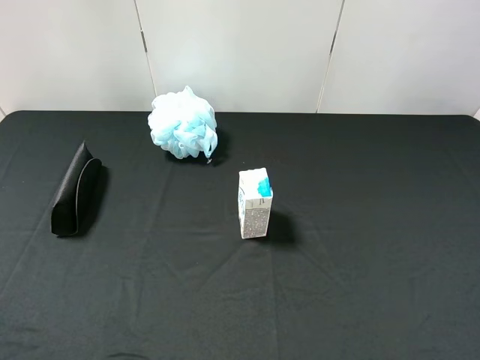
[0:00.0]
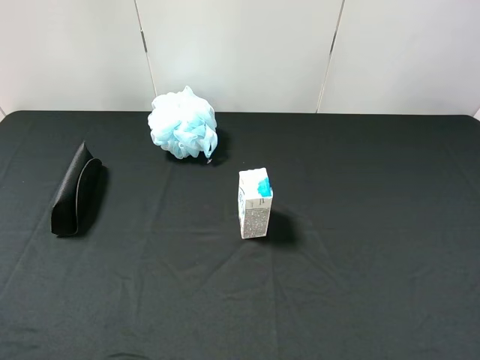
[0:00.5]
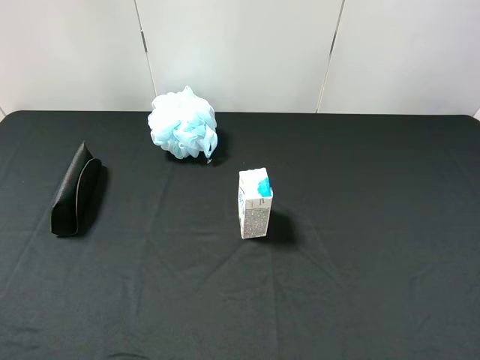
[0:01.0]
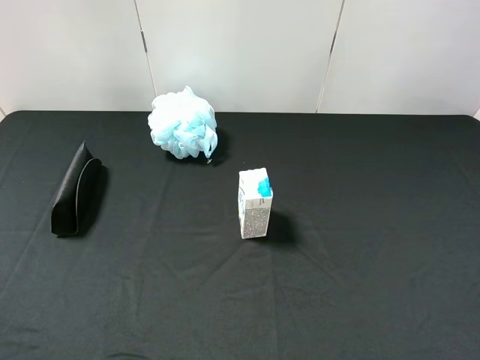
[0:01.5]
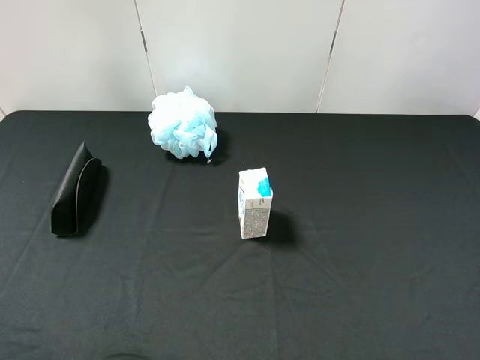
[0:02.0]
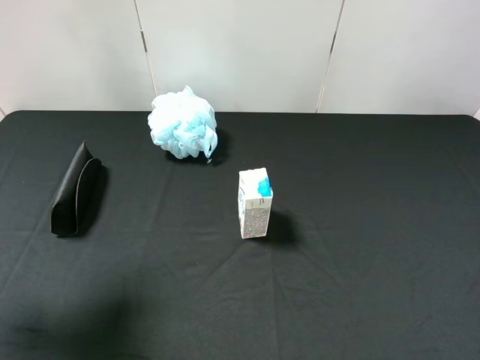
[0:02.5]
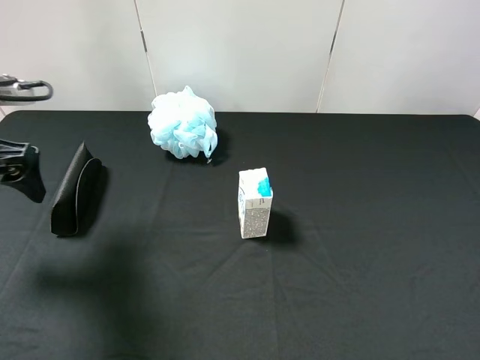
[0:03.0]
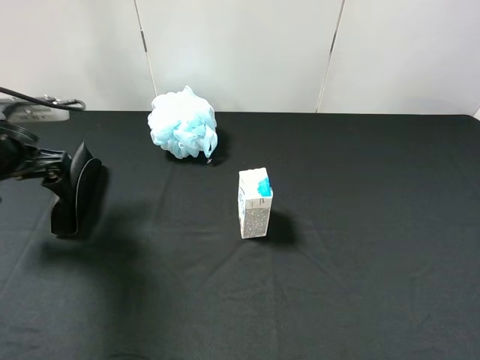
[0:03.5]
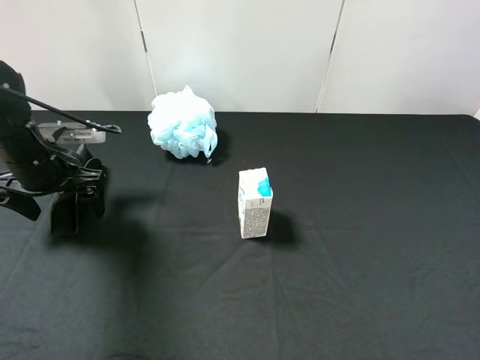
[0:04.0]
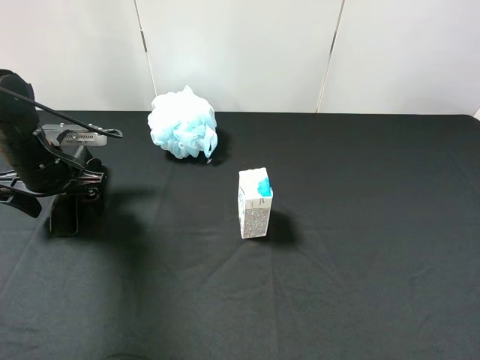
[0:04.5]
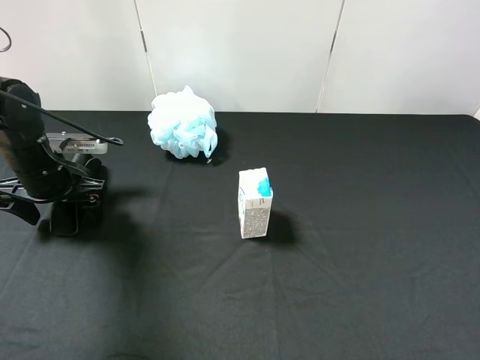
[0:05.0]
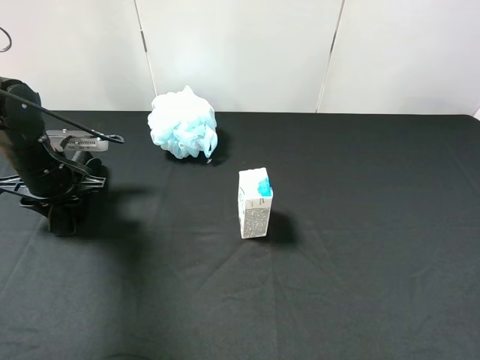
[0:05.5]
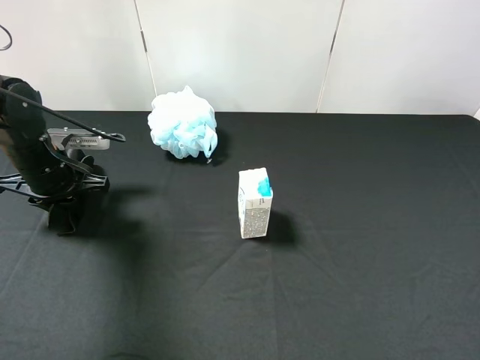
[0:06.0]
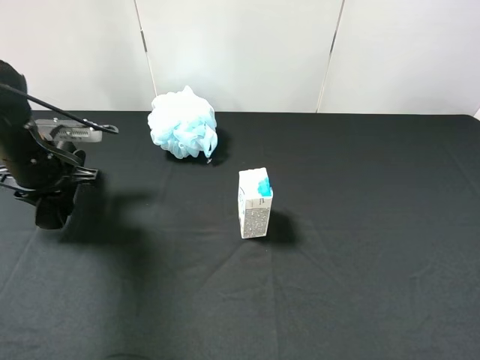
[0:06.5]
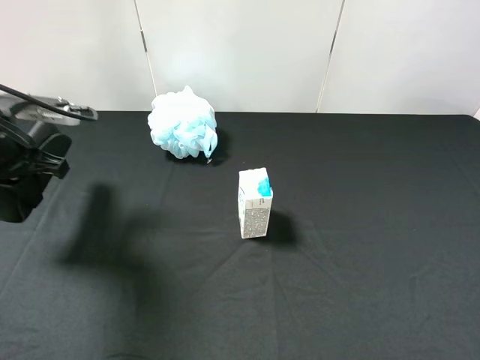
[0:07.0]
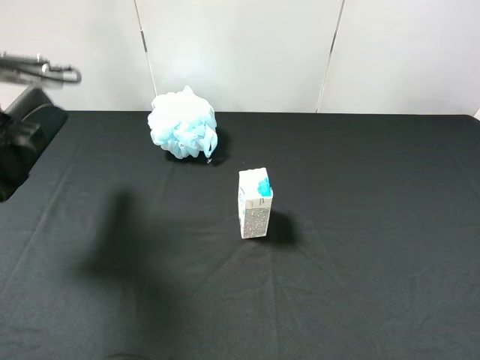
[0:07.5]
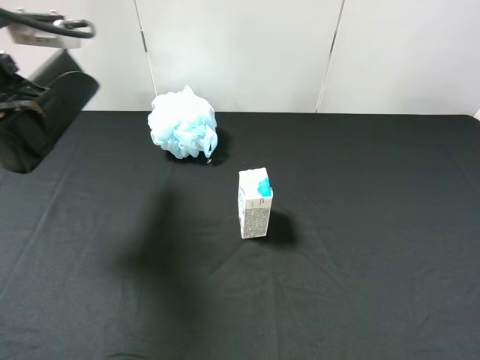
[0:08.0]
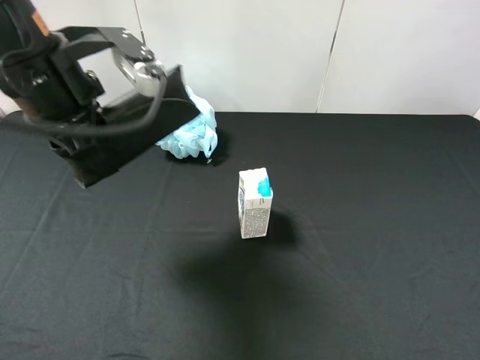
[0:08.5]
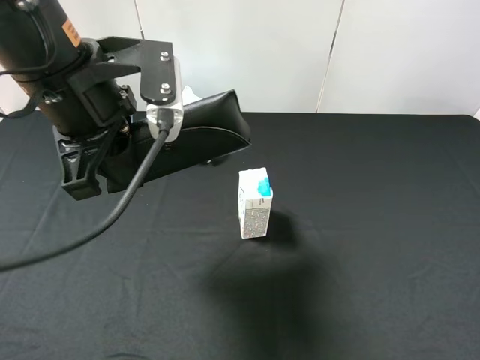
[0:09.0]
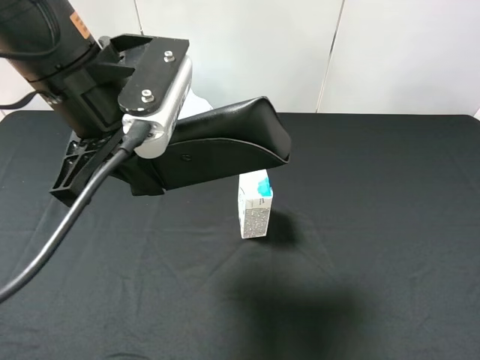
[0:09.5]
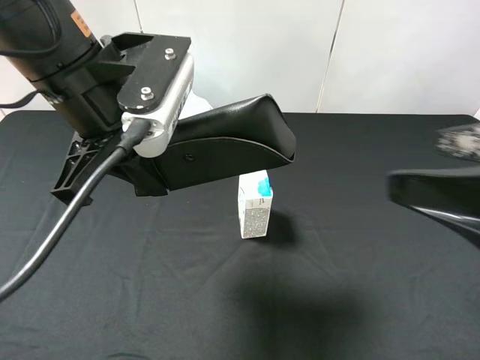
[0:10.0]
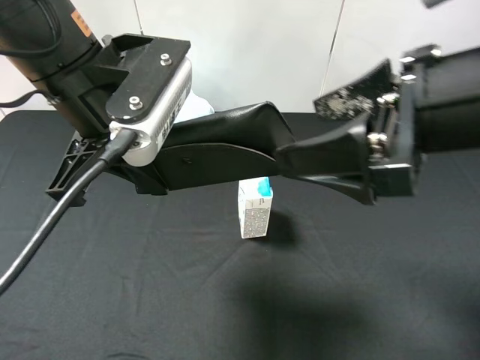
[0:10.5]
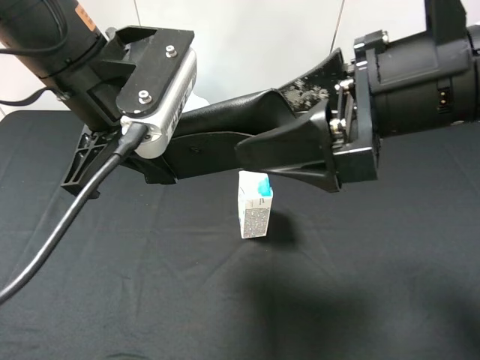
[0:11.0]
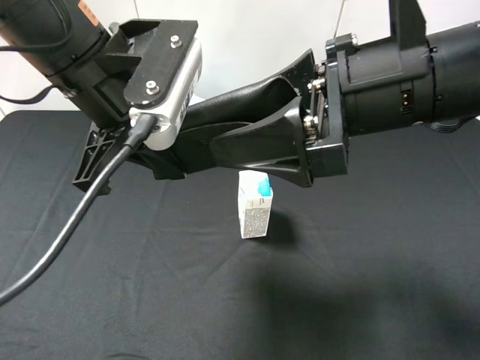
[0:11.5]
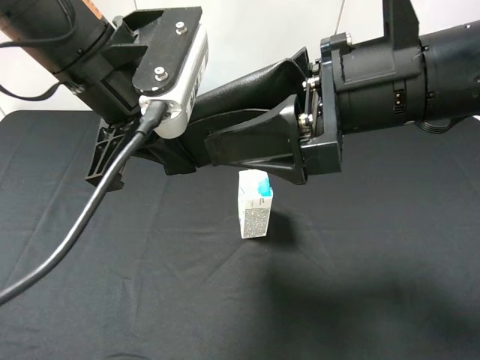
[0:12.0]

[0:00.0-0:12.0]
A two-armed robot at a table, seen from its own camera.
Task of the whole recording: use the left gripper to pick up the item and transfer it from the left gripper to the right gripper.
0:02.0 to 0:04.0: The left gripper travels forward and downward by roughly 30 cm.
0:04.0 to 0:06.0: The left gripper closes its fingers.
0:06.0 to 0:08.0: The left gripper heads upward, covering about 20 cm.
0:08.0 to 0:10.0: The left gripper travels to the right by some 15 cm. The right gripper heads forward and to the left, covering roughly 10 cm.
0:10.0 to 0:12.0: The right gripper goes about 15 cm to the left and forward.

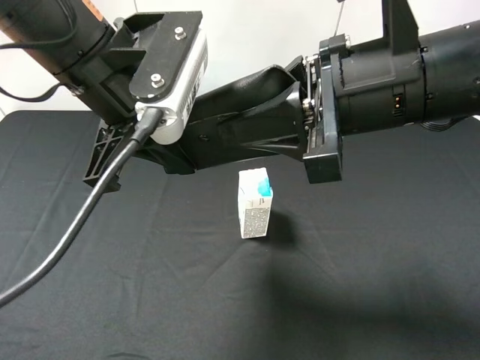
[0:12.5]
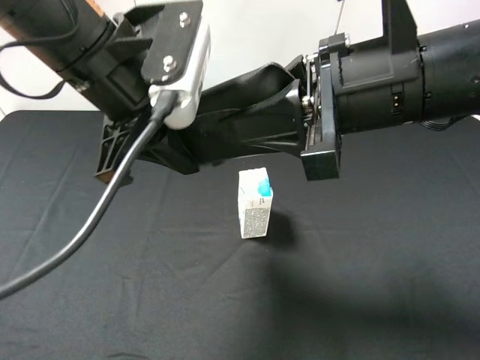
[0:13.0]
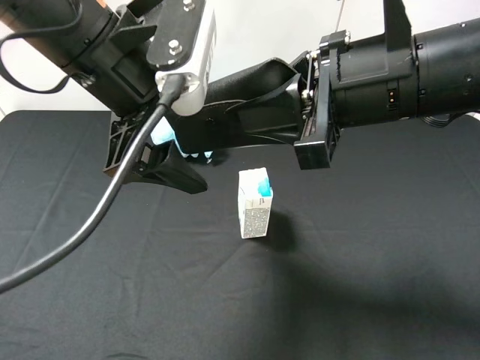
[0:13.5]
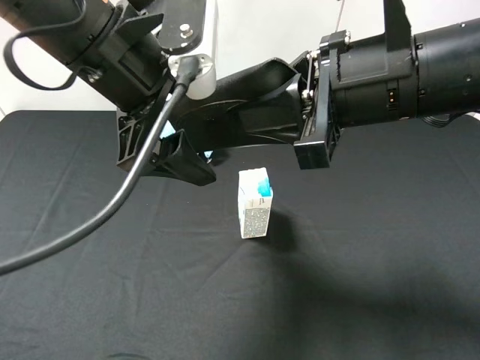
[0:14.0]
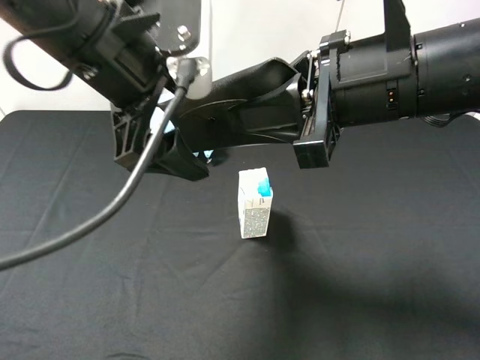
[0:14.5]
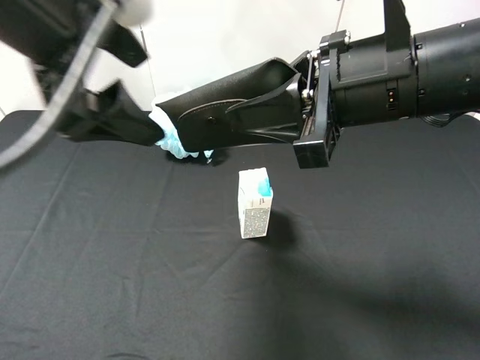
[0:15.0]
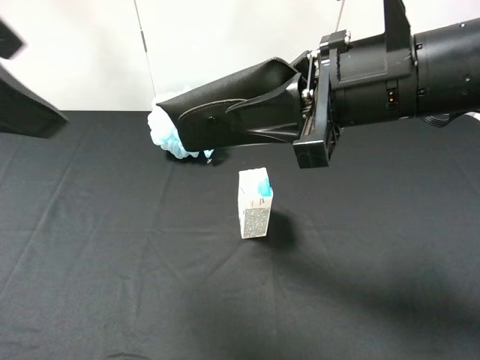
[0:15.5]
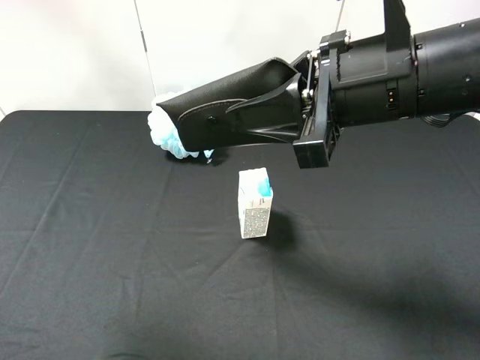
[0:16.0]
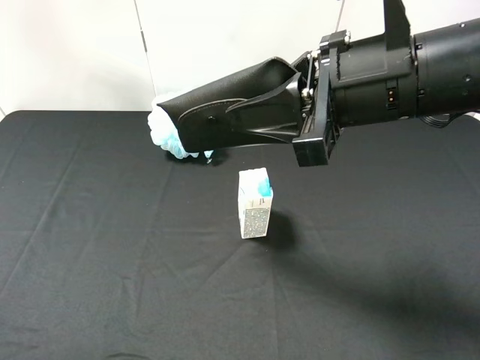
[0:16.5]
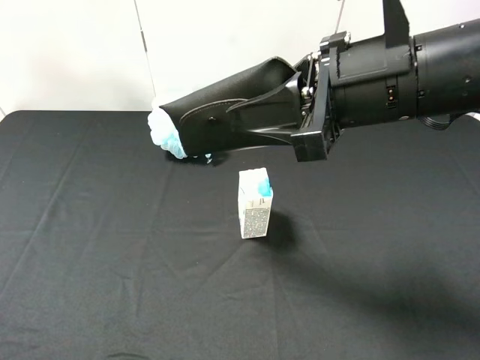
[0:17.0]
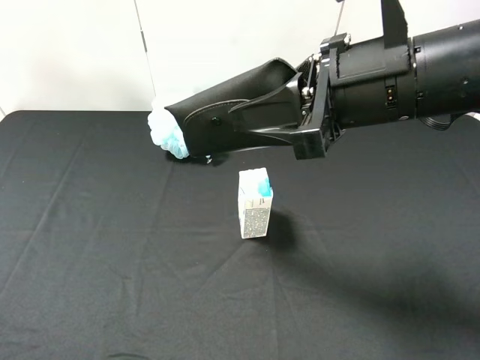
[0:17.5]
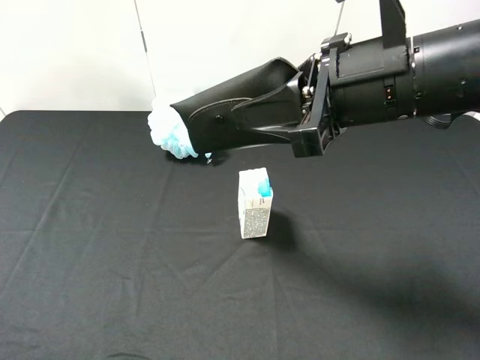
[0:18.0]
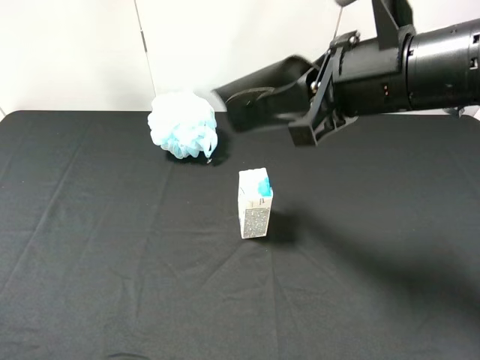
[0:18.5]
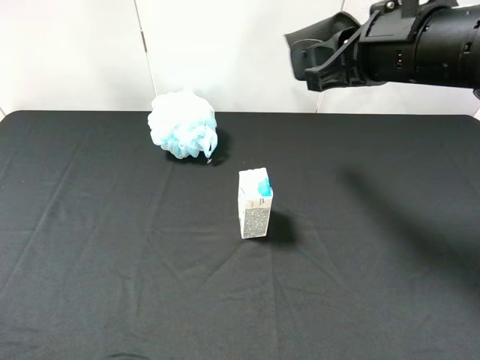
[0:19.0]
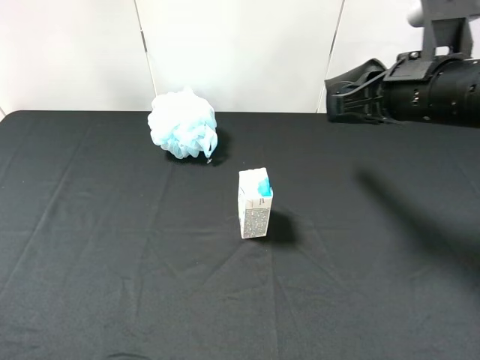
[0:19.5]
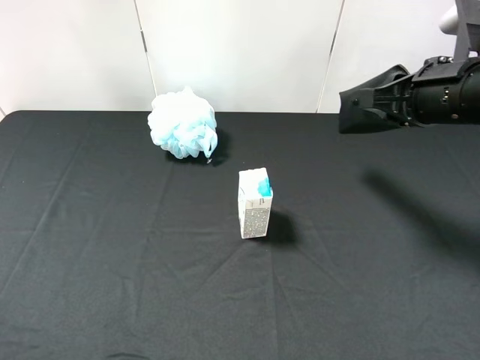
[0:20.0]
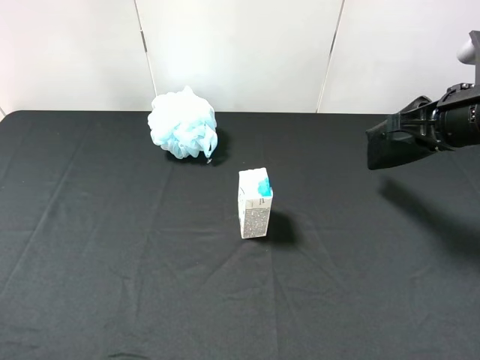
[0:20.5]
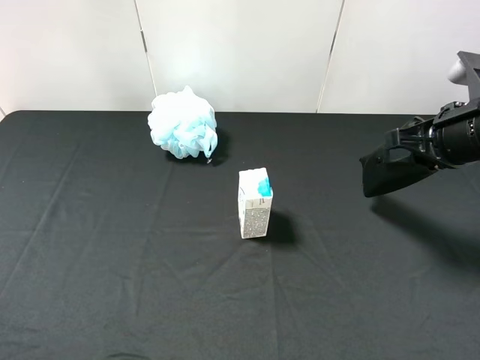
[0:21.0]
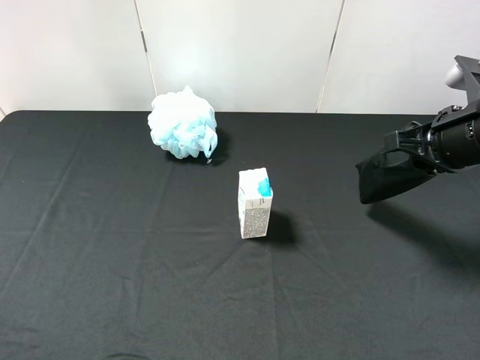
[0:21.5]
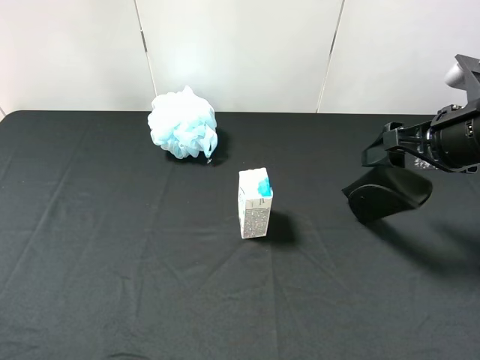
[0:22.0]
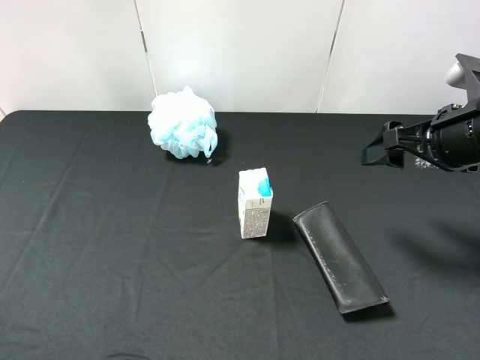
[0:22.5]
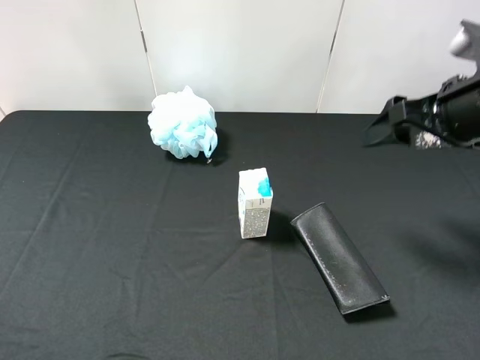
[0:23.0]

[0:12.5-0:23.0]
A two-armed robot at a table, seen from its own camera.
Task of the whole recording: use the left gripper to pick up the item and transfer it from the left gripper to the right gripper.
0:12.5 to 0:14.5: The left gripper opens up.
0:14.5 to 0:16.5: The left gripper goes roughly 30 cm backward and to the left.
0:16.5 to 0:19.0: The left gripper moves about 5 cm. The right gripper shifts by about 5 cm.
0:19.0 to 0:21.0: The right gripper moves to the right and downward, about 10 cm.
0:21.0 to 0:23.0: The right gripper opens.

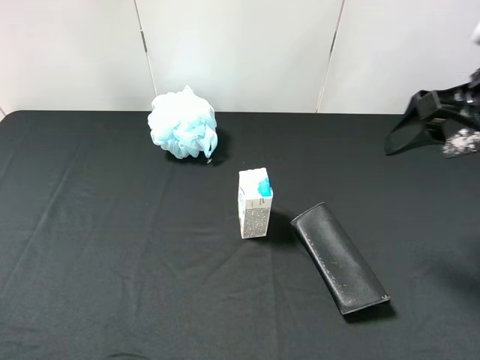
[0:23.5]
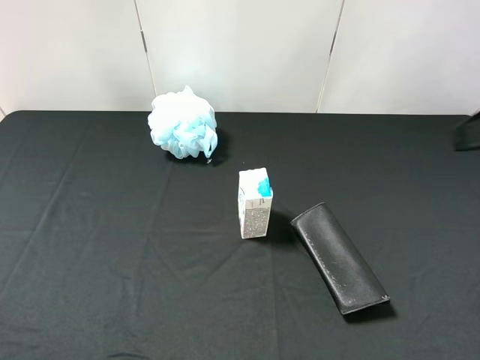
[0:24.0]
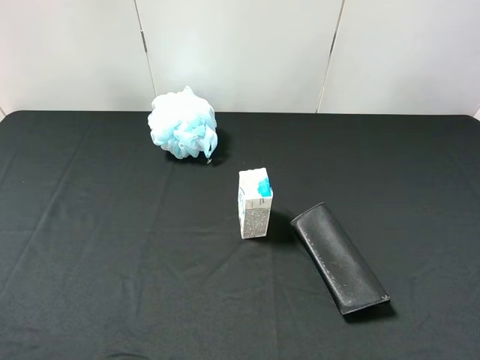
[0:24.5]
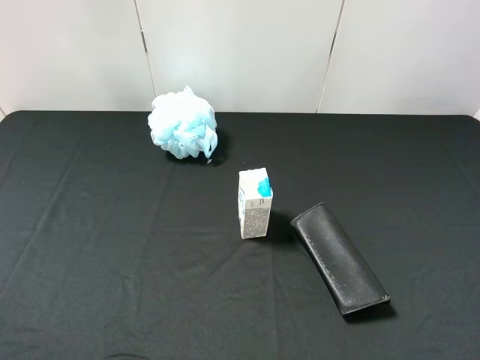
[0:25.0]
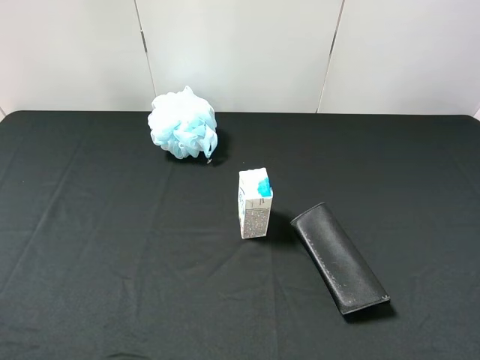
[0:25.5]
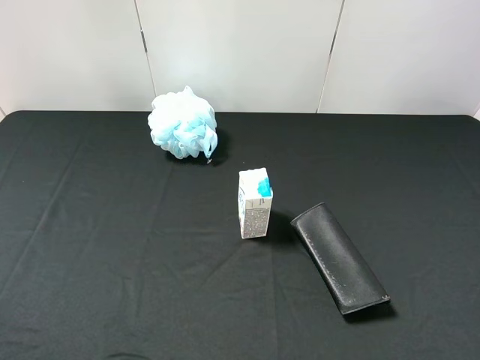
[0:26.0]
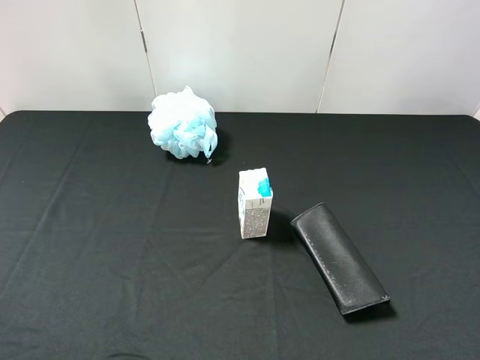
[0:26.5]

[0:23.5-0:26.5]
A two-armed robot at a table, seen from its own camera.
Task of the whole recording: use the left gripper to pick up the item and transfer it from the left gripper to the right gripper.
0:23.5 to 0:25.0: The right gripper is displaced backward by some 20 cm.
0:25.0 to 0:26.5: The two grippers keep their place.
